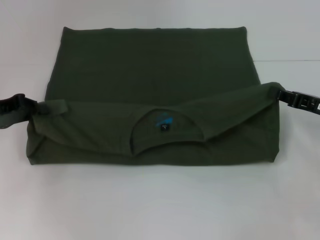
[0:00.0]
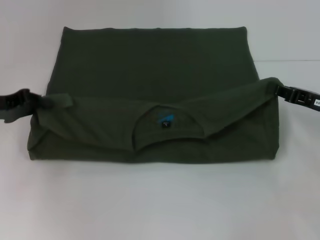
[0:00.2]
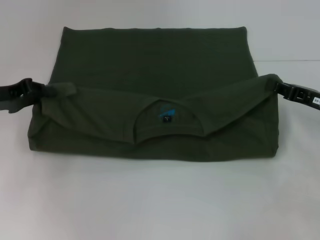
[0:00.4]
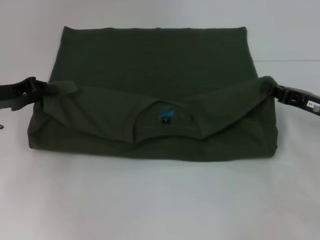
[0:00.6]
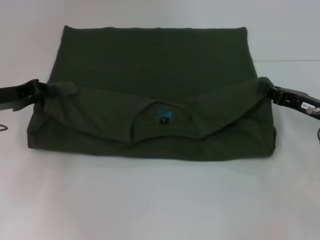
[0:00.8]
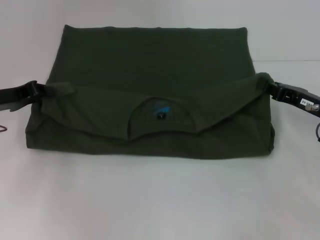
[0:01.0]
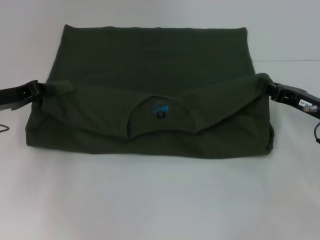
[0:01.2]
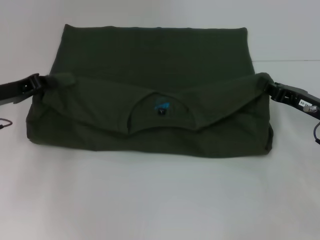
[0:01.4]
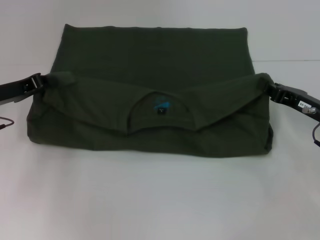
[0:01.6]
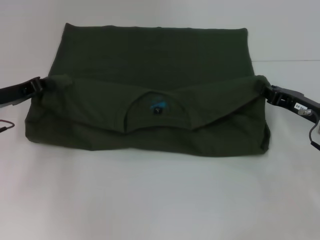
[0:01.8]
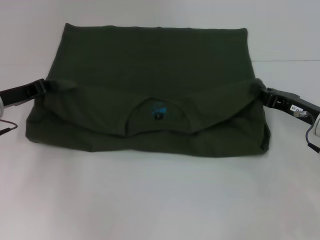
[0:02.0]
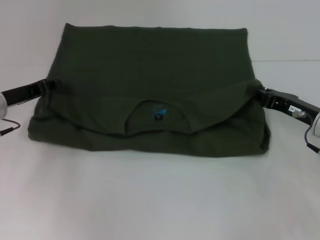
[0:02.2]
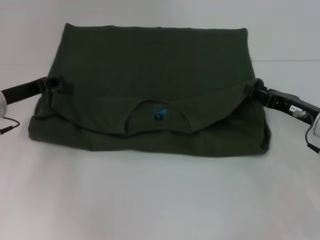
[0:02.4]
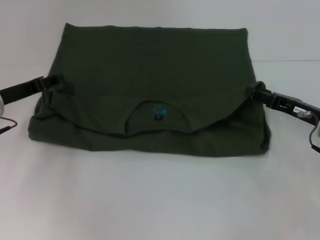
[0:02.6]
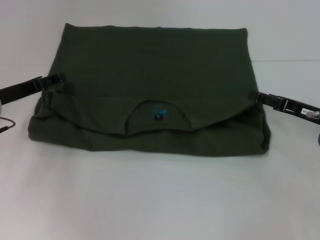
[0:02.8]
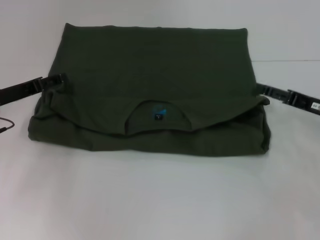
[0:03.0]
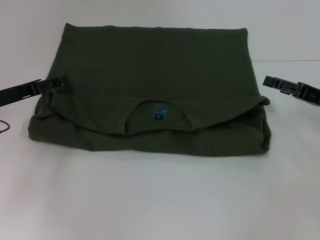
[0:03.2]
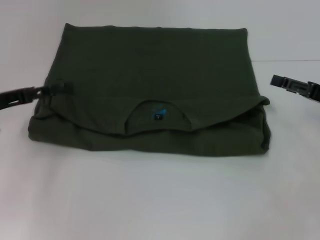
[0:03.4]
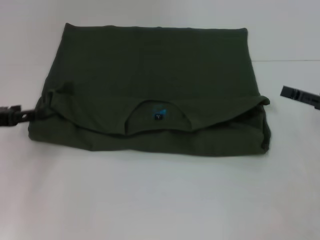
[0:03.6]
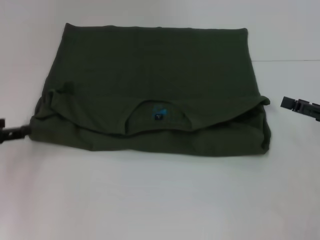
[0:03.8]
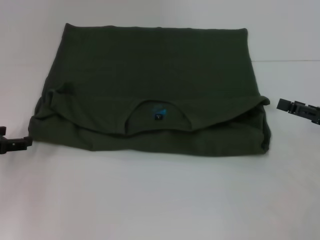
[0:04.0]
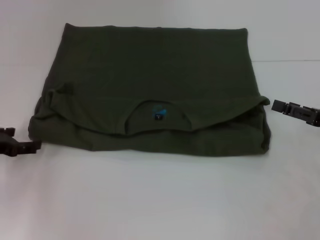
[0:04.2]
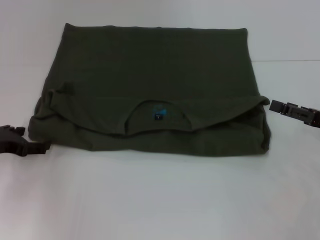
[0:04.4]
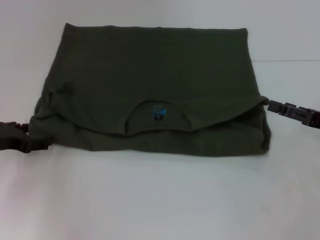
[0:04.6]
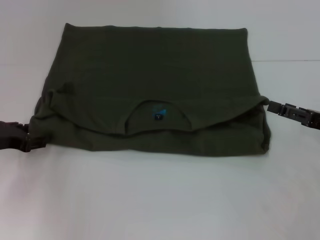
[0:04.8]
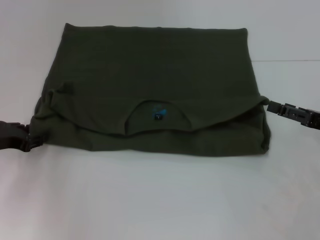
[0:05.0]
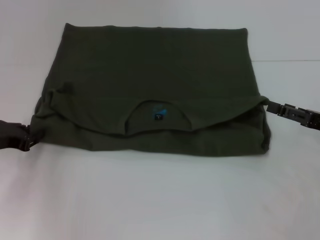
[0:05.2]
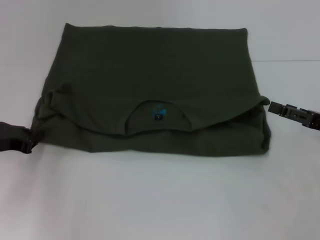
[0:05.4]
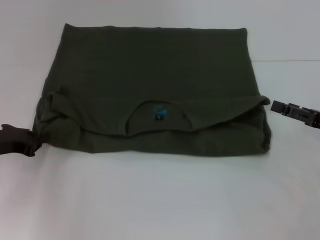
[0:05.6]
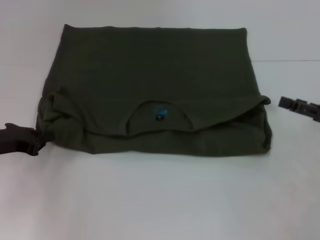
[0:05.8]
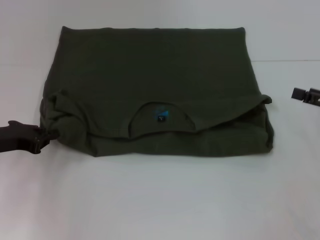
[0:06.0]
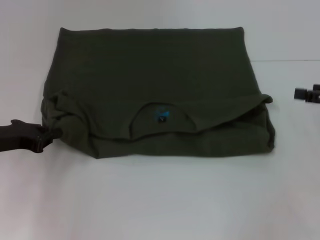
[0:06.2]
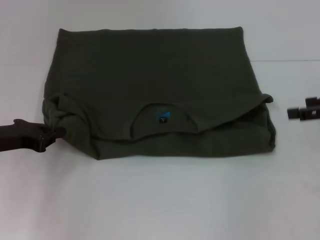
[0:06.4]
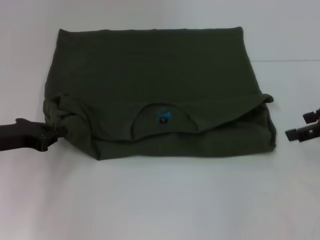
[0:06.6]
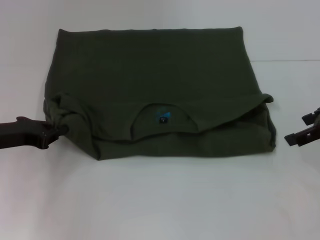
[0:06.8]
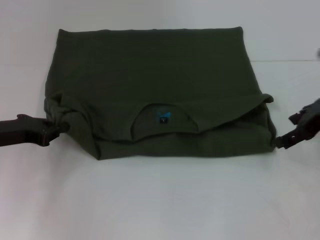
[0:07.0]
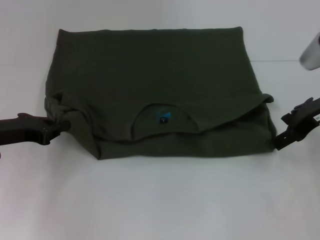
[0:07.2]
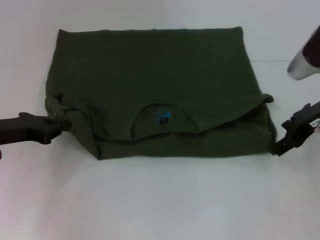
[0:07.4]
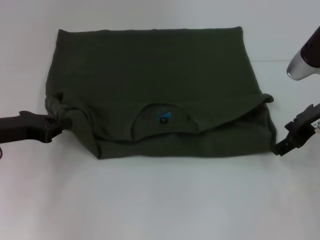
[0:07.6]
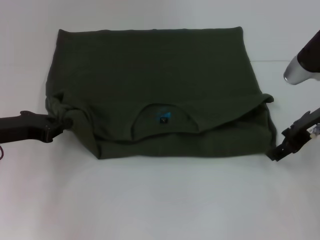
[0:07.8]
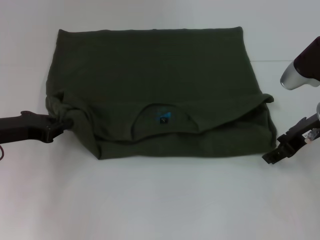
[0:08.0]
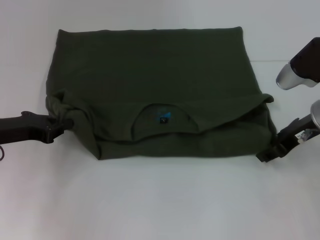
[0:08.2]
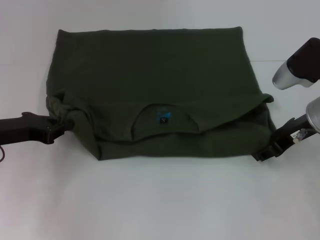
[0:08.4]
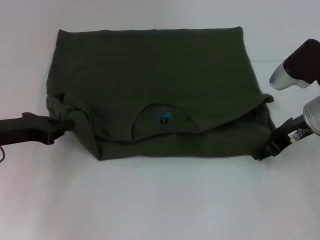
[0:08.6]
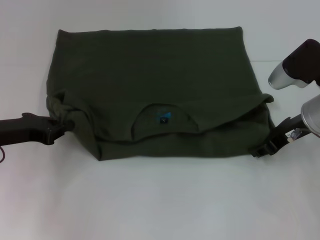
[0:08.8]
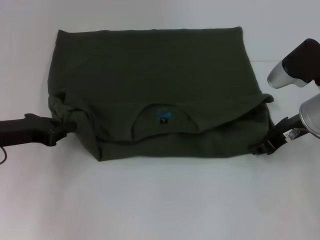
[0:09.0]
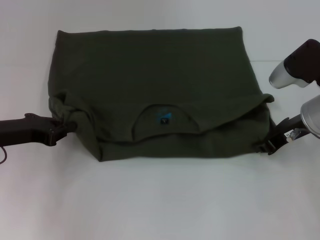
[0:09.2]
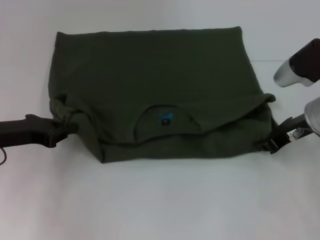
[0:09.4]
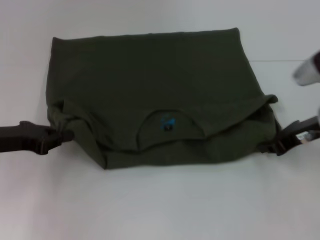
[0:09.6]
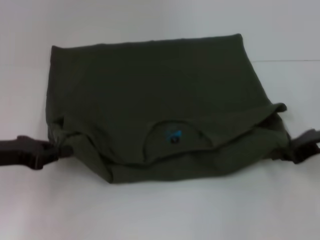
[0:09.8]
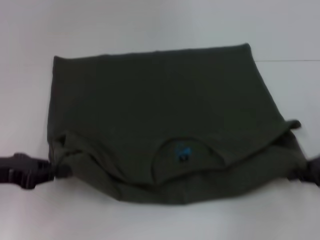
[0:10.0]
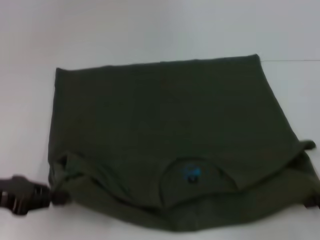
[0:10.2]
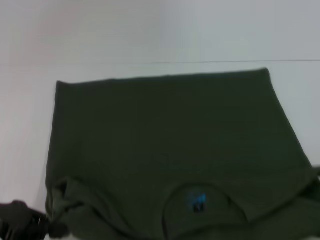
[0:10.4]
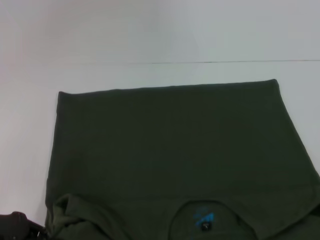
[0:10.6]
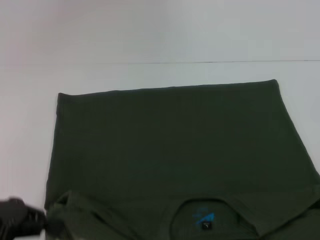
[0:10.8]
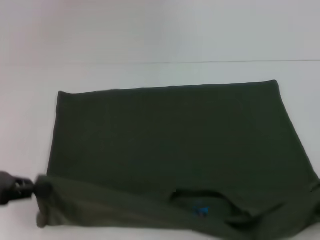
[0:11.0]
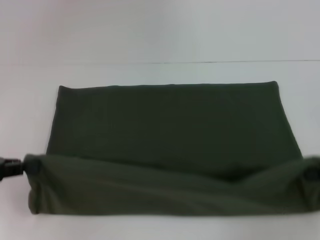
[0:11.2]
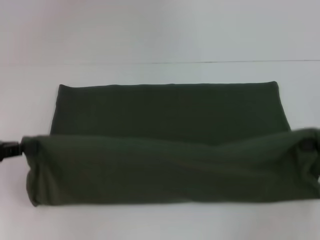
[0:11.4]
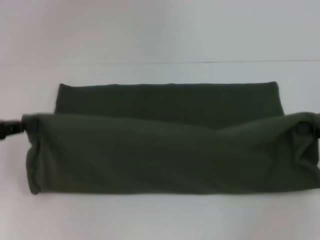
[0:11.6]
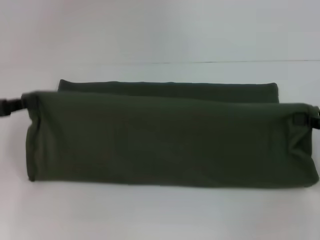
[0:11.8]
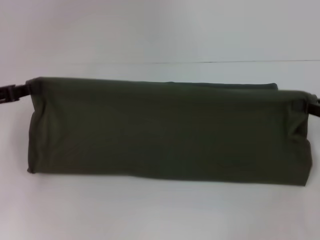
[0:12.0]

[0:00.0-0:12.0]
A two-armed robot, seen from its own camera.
Step, 0:00.0 to 0:02.8: Fold the clothes with your left hand.
Step, 0:00.0 to 0:02.8: Fold the clothes with your right hand.
Step, 0:03.0 to 0:10.6: Pull the clothes with your left hand.
Step, 0:03.0 to 0:10.6: Pull the clothes with your right hand.
0:00.0 to 0:01.6: The grippers move only a little.
0:01.6 to 0:03.0: The right gripper opens its fingers, while the left gripper opens up.
0:03.0 to 0:04.4: The right gripper shifts by about 5 cm.
0:04.4 to 0:06.0: The left gripper closes.
0:06.0 to 0:07.6: The right gripper travels to the left, forward and upward by roughly 15 cm.
0:07.6 to 0:09.0: The right gripper closes its fingers.
0:09.0 to 0:10.4: The left gripper goes about 10 cm backward; the right gripper travels backward and to the right by some 20 cm, and closes.
0:10.4 to 0:12.0: Both grippers travel together forward, some 10 cm.

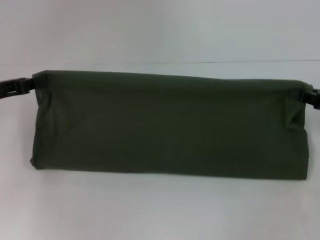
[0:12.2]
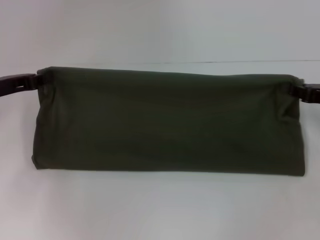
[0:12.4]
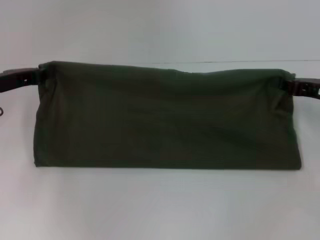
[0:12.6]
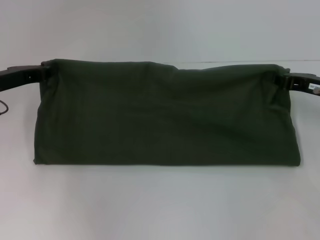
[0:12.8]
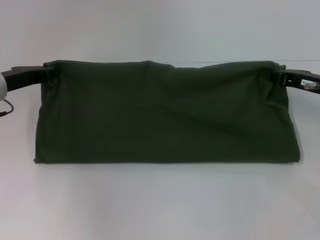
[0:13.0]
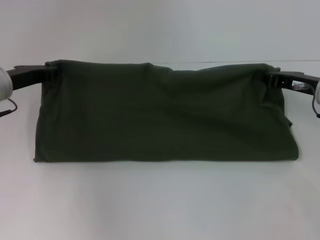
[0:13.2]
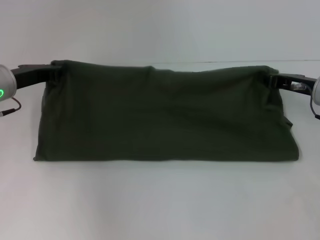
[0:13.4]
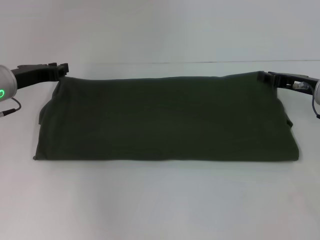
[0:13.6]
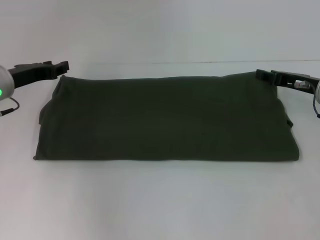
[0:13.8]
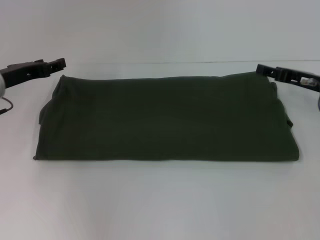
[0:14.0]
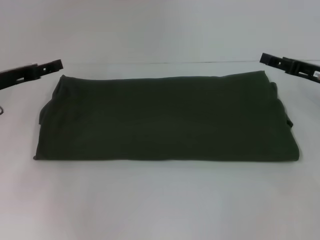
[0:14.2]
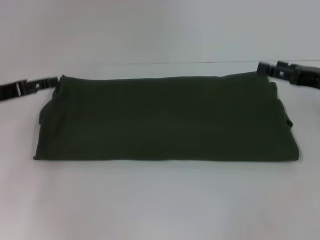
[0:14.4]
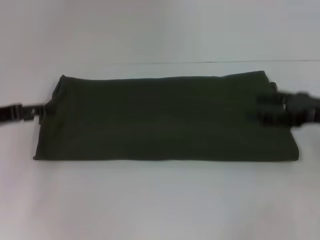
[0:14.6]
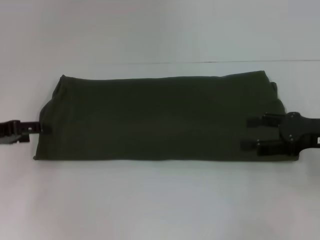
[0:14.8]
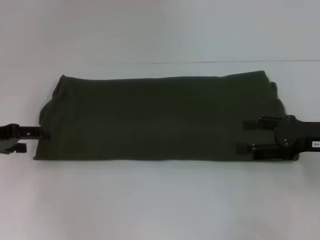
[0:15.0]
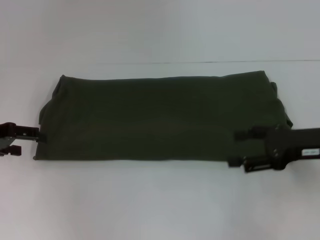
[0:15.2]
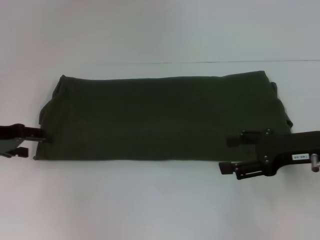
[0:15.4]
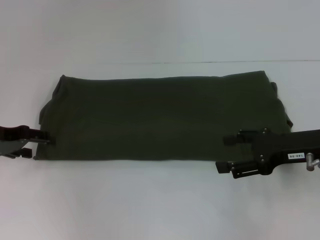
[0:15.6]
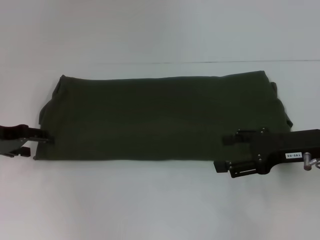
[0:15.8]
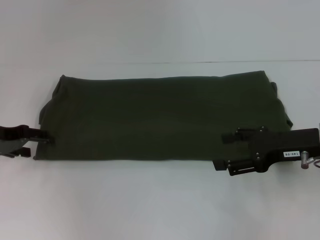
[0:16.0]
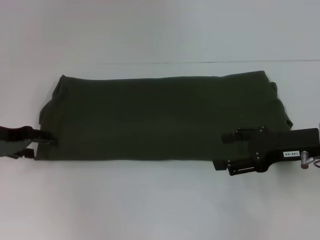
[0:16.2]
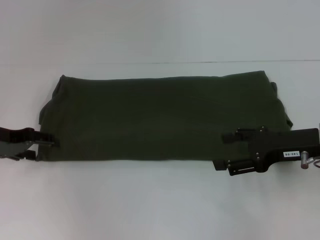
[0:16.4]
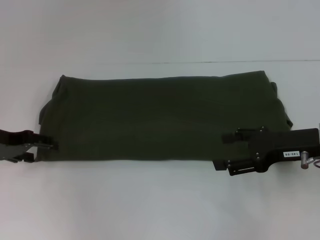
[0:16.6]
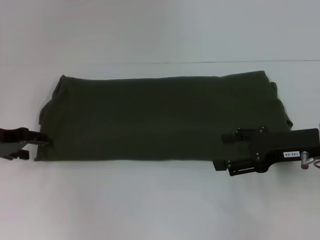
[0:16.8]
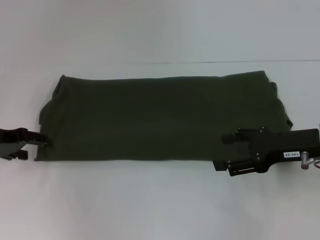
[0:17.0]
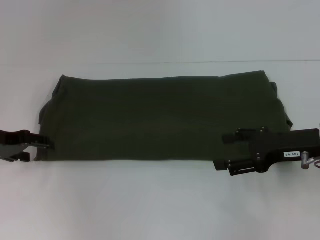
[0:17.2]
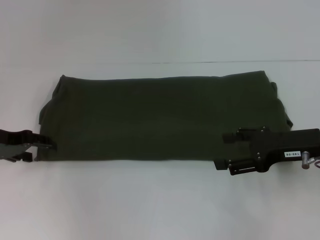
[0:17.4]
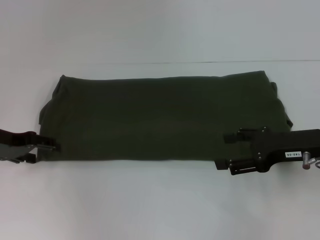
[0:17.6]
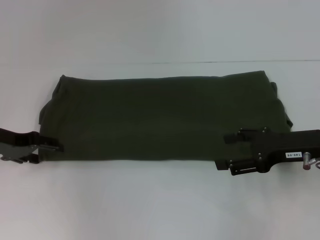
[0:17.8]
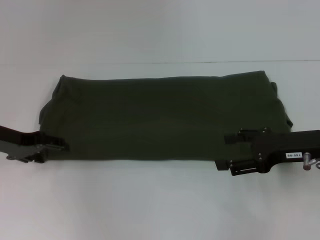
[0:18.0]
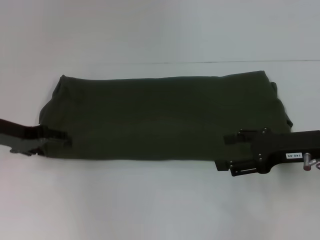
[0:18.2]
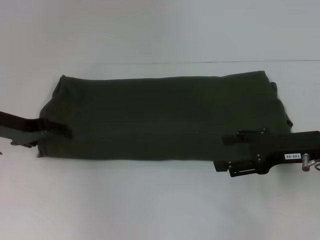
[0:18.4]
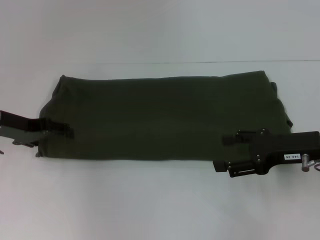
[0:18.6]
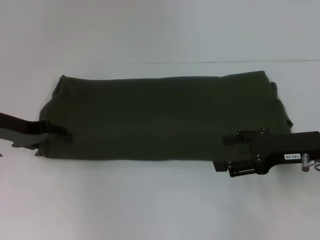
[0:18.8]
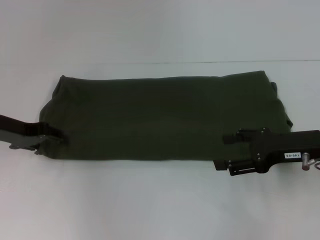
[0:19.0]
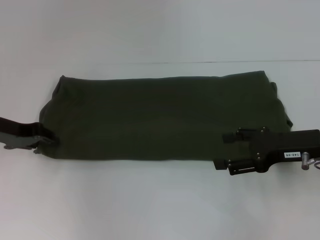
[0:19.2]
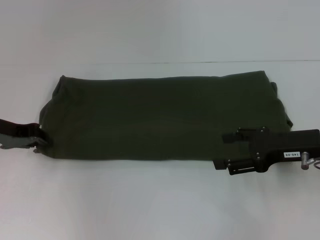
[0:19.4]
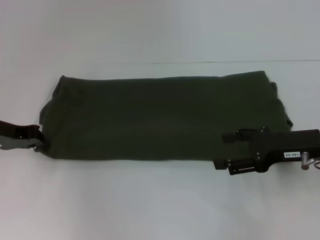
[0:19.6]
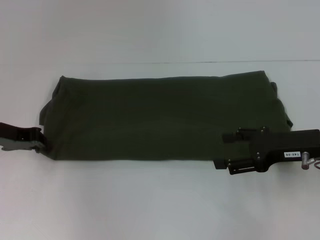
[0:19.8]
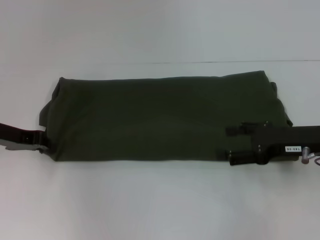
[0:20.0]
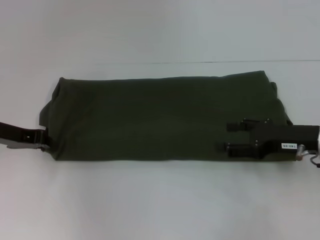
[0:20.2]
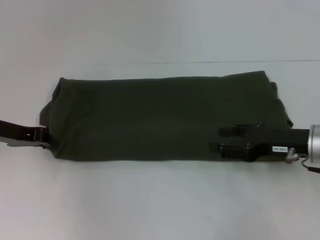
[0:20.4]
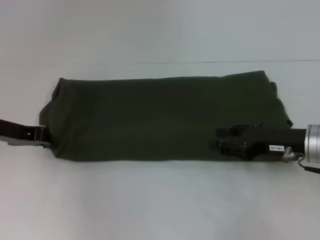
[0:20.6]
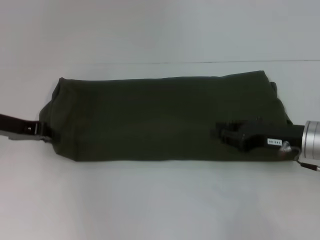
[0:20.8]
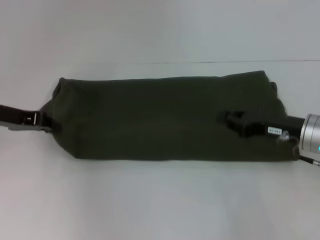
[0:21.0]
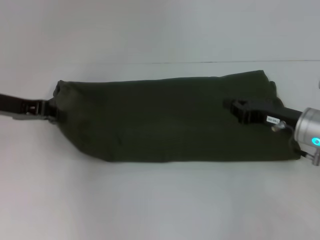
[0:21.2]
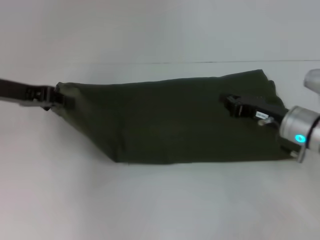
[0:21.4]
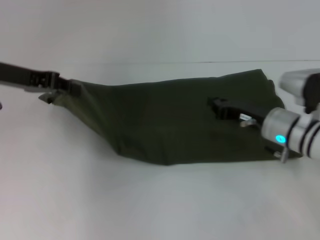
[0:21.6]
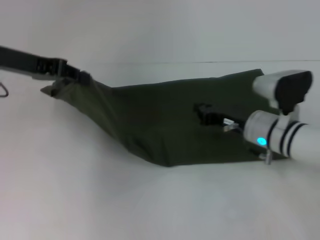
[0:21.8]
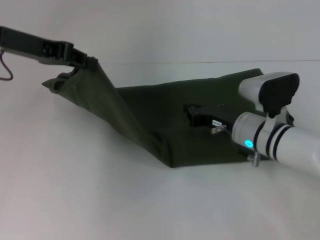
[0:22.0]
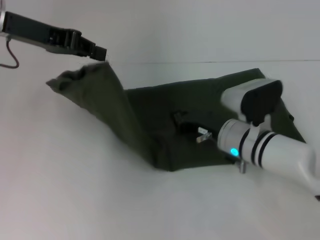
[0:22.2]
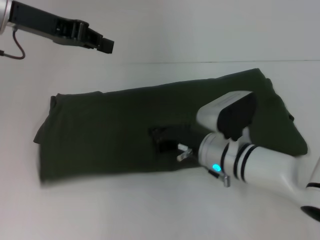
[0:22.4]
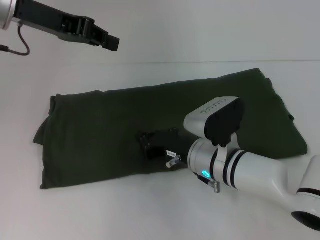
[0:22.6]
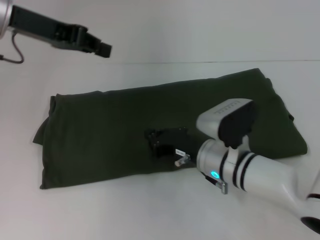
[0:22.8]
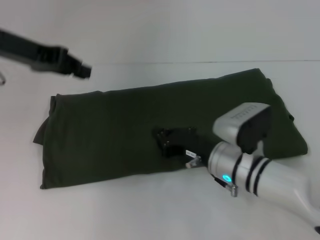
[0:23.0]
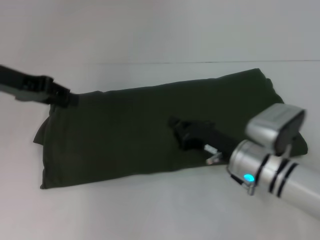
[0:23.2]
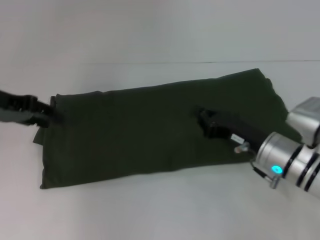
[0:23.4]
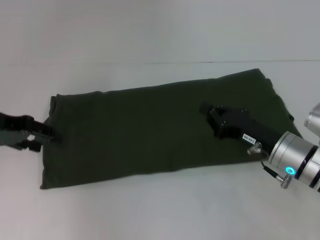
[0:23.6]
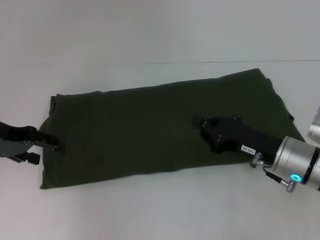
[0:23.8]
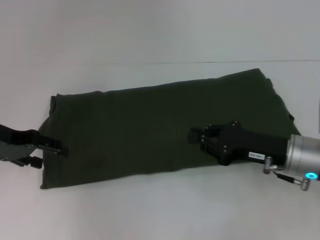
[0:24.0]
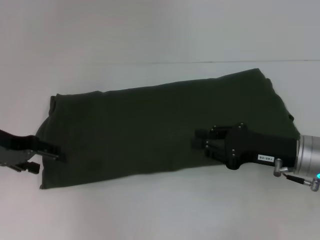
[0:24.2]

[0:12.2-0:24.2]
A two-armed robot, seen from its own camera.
0:12.2 to 0:13.8: The left gripper moves to the right and forward, roughly 5 cm. The right gripper travels to the left and forward by some 10 cm.
0:13.8 to 0:15.2: The left gripper moves to the left and backward, approximately 10 cm, and opens, while the right gripper travels backward by about 10 cm, and opens up.
0:15.2 to 0:18.2: The grippers move only a little.
0:18.2 to 0:19.8: The left gripper closes its fingers.
0:19.8 to 0:21.2: The right gripper closes. The left gripper goes roughly 5 cm upward.
0:21.2 to 0:22.6: The right gripper moves to the left, approximately 15 cm, while the left gripper travels upward and to the right by about 15 cm.
0:22.6 to 0:24.2: The left gripper travels downward, to the left and backward by some 15 cm, and opens its fingers; the right gripper goes roughly 15 cm to the right.
